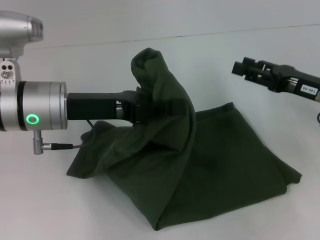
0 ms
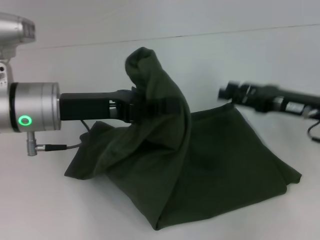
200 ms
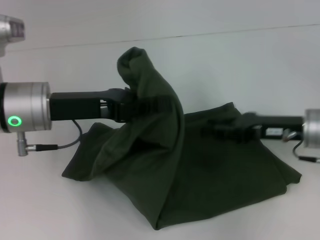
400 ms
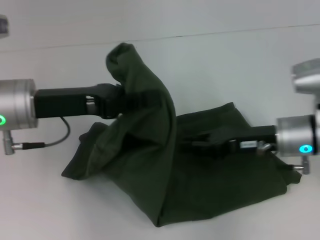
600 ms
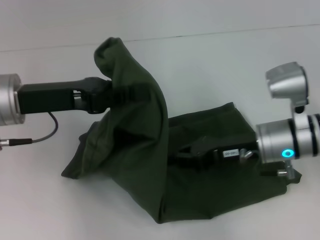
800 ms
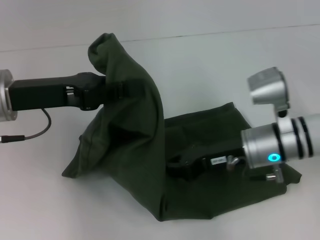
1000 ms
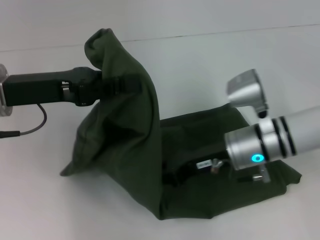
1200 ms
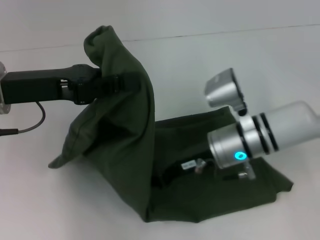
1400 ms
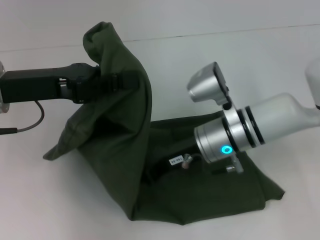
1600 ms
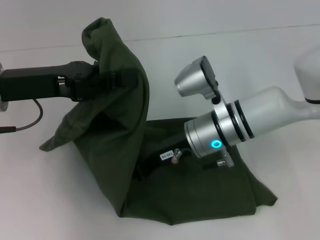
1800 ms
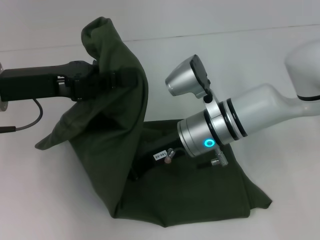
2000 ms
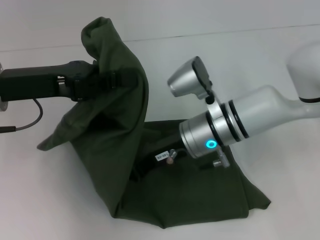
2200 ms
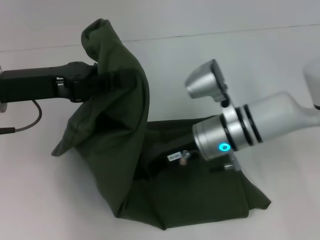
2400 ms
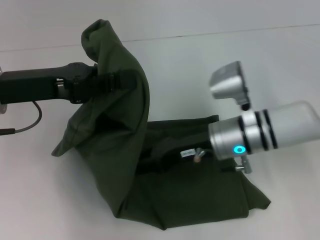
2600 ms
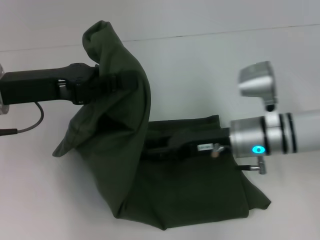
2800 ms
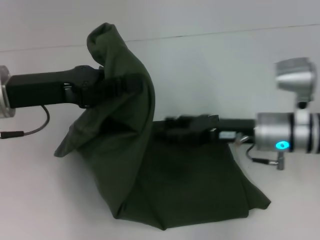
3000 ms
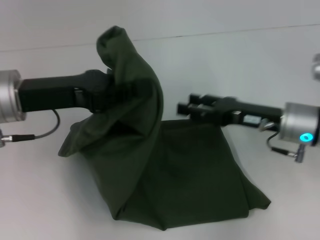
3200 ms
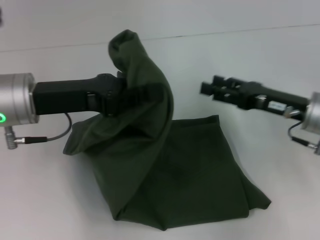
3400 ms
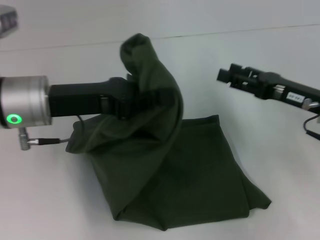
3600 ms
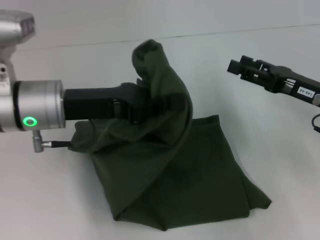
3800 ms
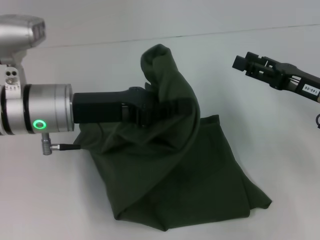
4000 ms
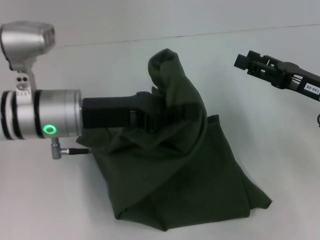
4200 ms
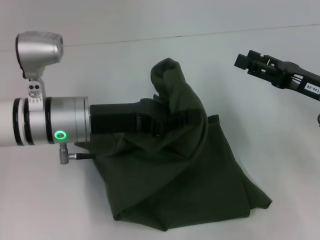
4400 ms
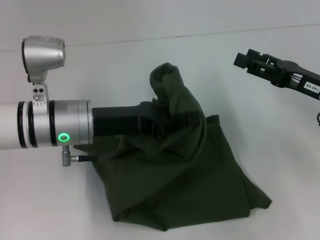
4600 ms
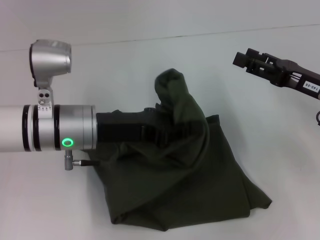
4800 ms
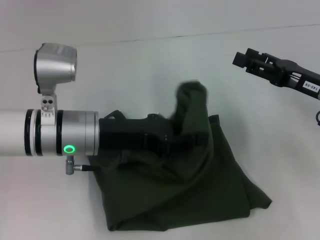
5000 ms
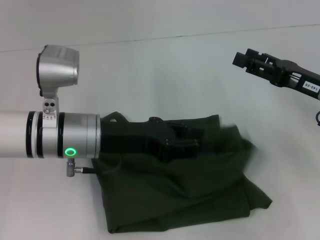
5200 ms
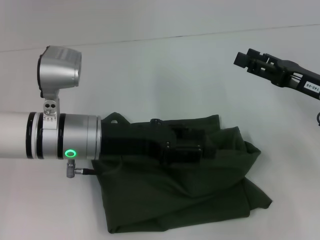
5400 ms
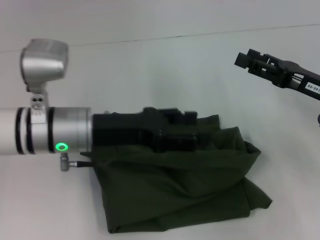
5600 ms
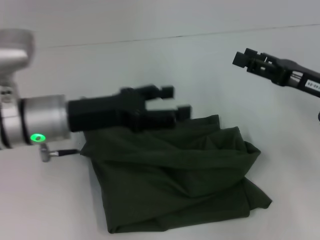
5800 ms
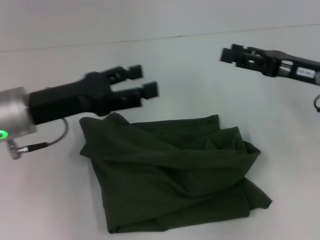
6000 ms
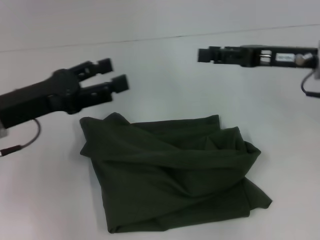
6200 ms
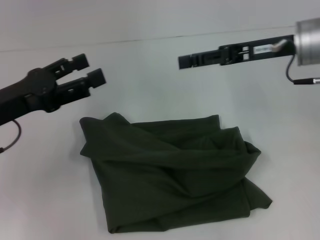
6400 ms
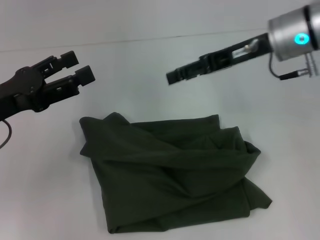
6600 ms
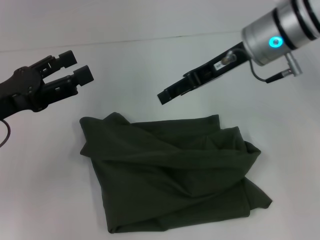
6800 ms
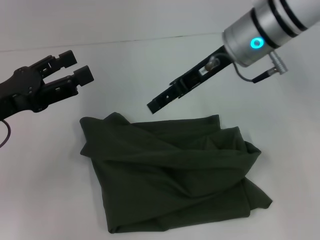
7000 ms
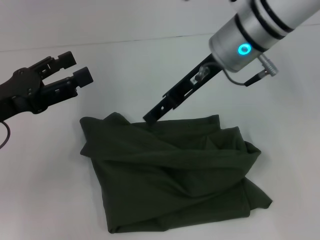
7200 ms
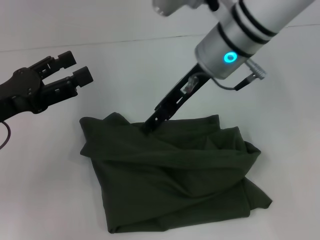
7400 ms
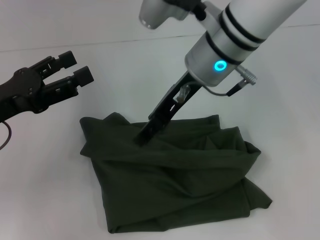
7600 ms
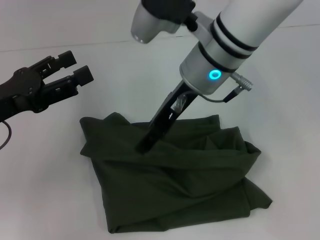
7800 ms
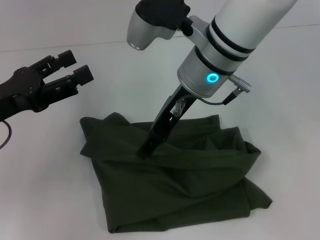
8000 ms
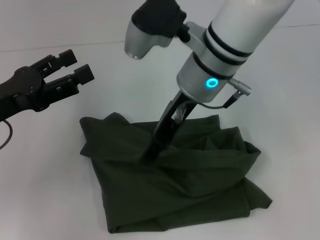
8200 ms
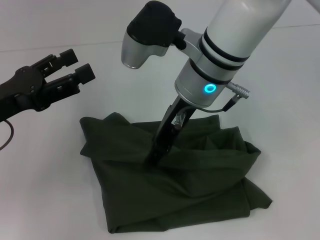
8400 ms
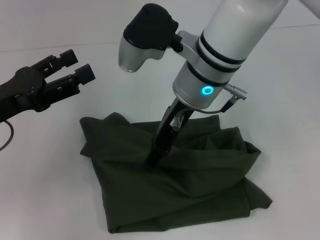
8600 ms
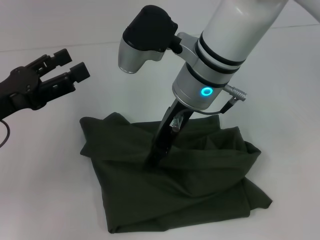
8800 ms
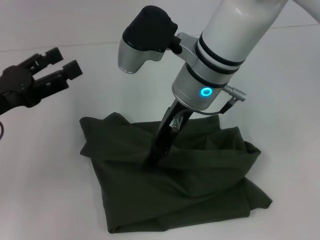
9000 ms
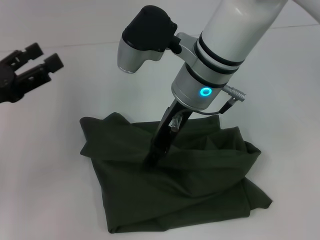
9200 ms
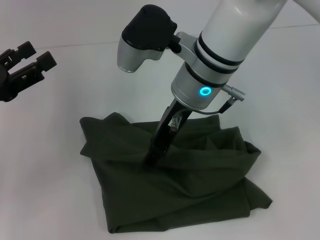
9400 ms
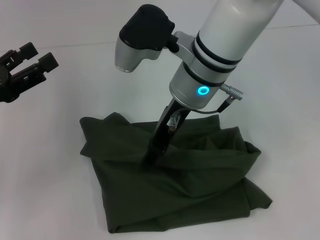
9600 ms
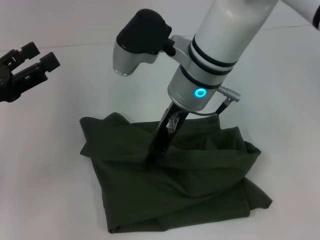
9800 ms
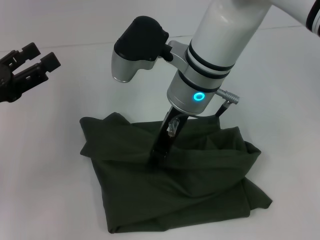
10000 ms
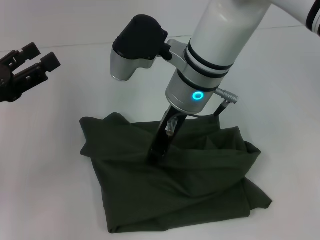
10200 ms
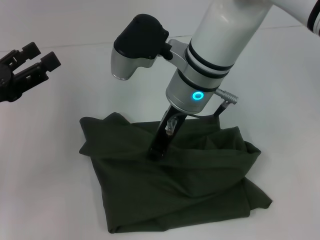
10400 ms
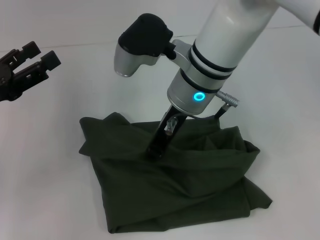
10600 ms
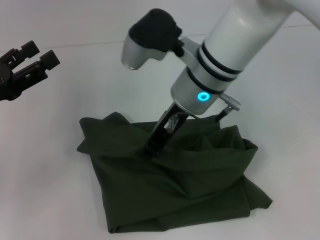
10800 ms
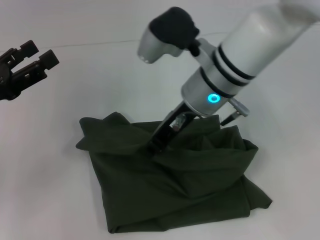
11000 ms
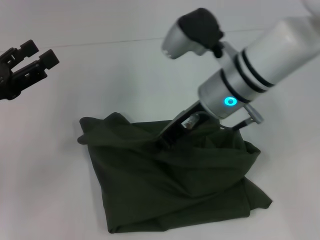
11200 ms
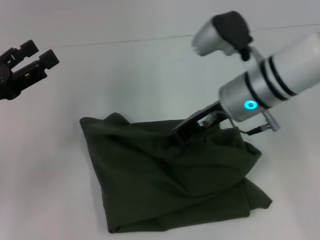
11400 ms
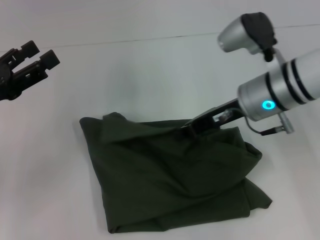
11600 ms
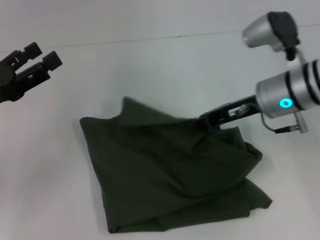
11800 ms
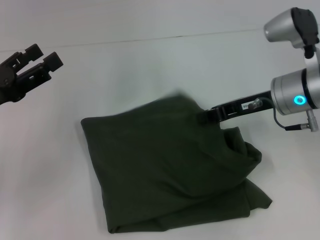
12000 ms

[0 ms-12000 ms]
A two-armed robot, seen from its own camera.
0 ms to 1600 ms: The right gripper goes roughly 20 cm to the left, and closes up; the left gripper heads to the left, covering about 5 cm.
1600 ms to 3000 ms: The right gripper heads to the right, covering about 10 cm, and opens its fingers.
3000 ms to 4400 ms: The right gripper is displaced to the right by some 10 cm. The left gripper shifts approximately 10 cm to the right and downward.
4400 ms to 6000 ms: The left gripper goes about 5 cm to the left, and opens.
6000 ms to 7600 ms: The left gripper heads to the left, covering roughly 5 cm. The right gripper heads to the left, covering roughly 20 cm.
7600 ms to 9000 ms: The grippers move only a little.
9000 ms to 10400 ms: The right gripper closes up.
10400 ms to 12000 ms: The right gripper shifts about 15 cm to the right.

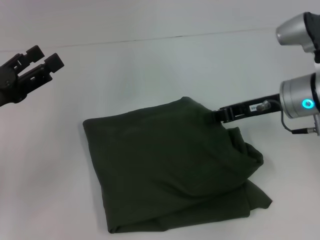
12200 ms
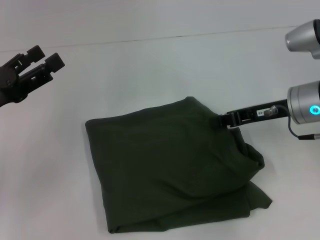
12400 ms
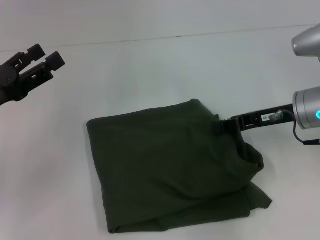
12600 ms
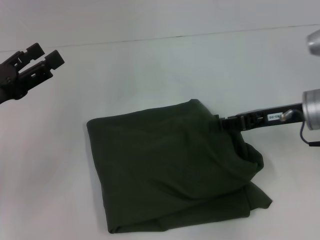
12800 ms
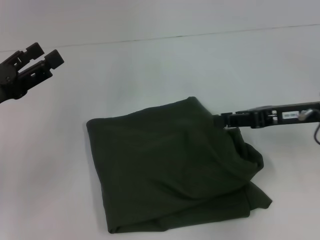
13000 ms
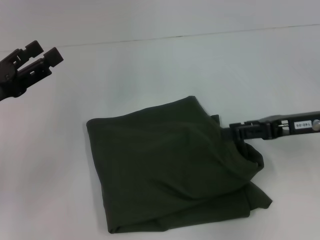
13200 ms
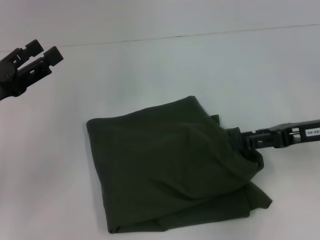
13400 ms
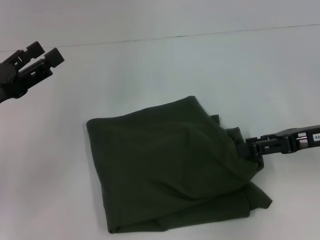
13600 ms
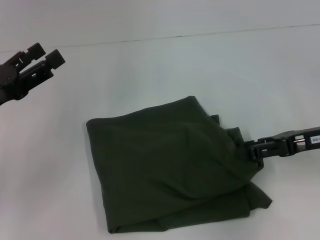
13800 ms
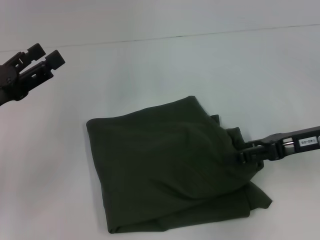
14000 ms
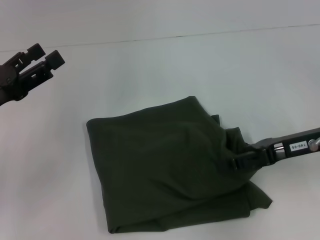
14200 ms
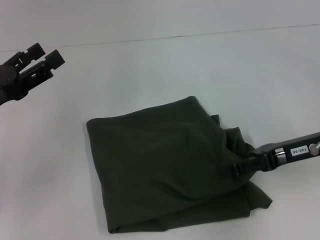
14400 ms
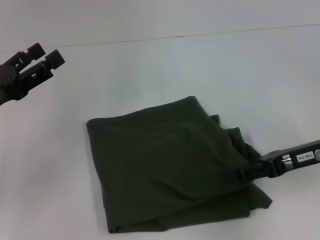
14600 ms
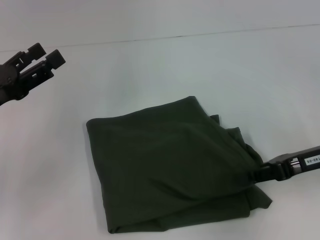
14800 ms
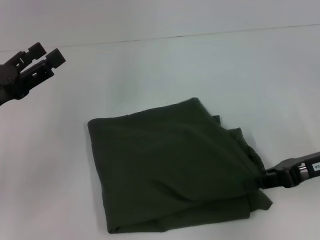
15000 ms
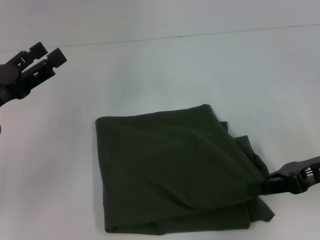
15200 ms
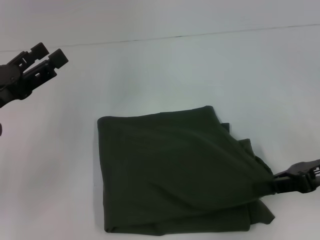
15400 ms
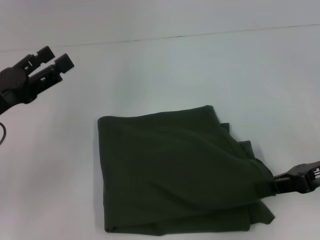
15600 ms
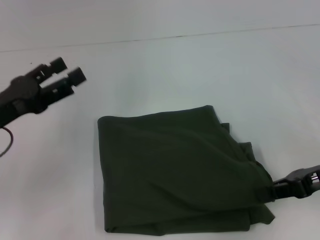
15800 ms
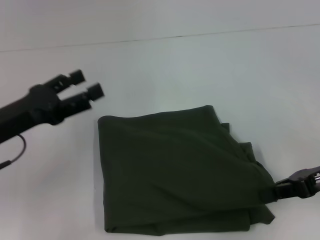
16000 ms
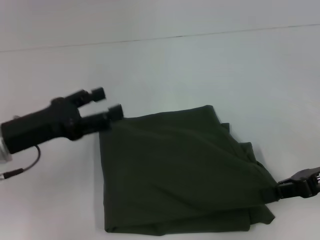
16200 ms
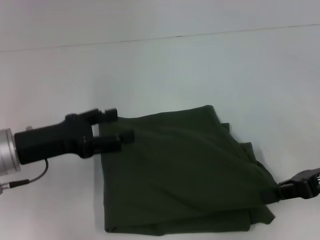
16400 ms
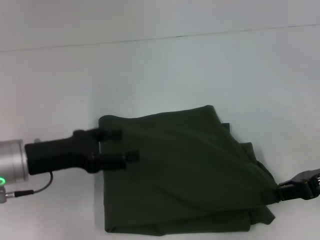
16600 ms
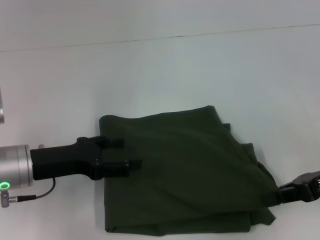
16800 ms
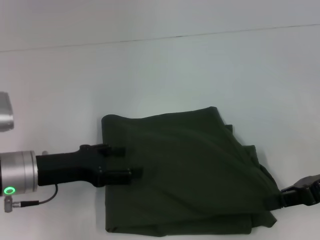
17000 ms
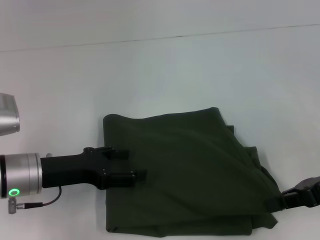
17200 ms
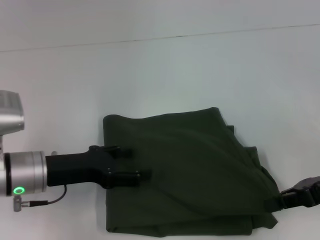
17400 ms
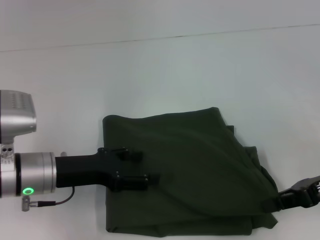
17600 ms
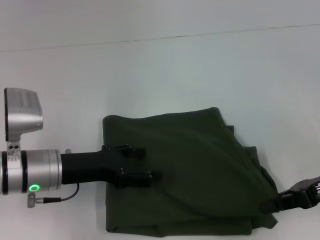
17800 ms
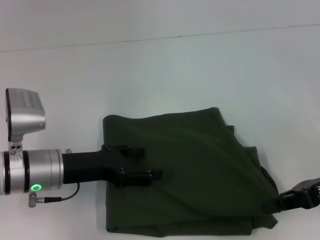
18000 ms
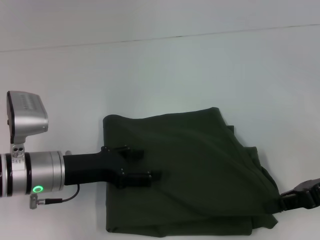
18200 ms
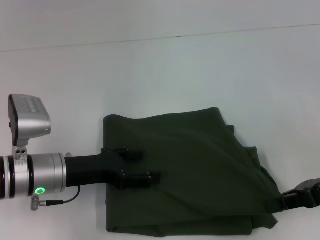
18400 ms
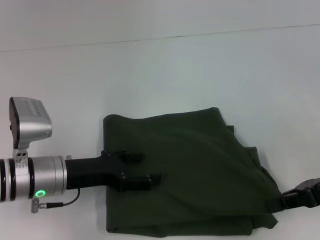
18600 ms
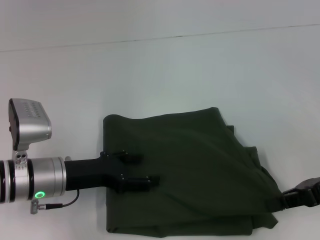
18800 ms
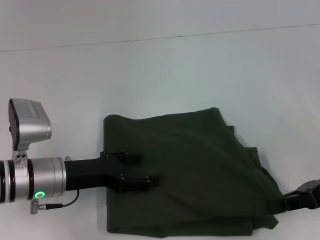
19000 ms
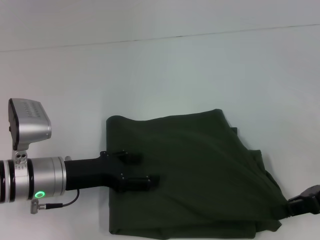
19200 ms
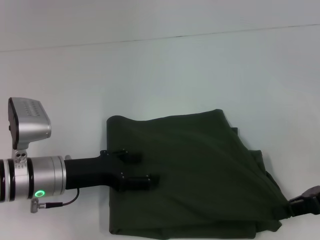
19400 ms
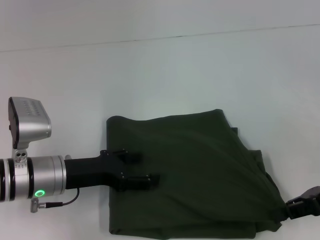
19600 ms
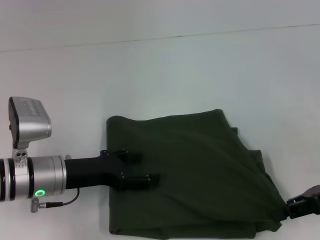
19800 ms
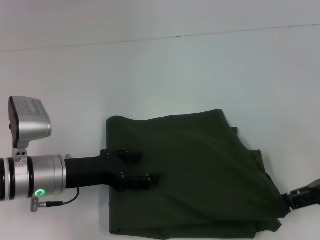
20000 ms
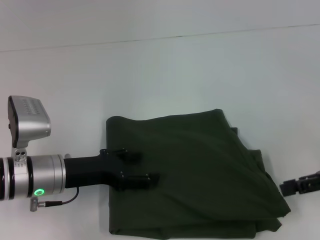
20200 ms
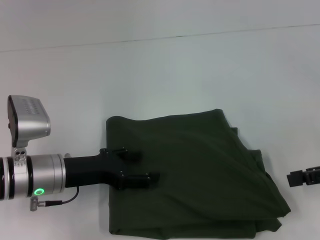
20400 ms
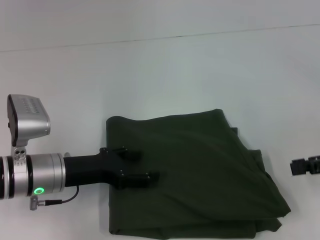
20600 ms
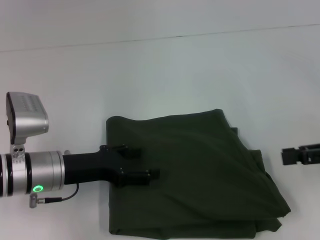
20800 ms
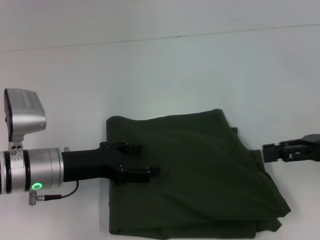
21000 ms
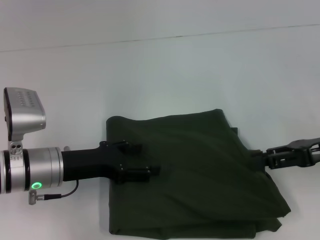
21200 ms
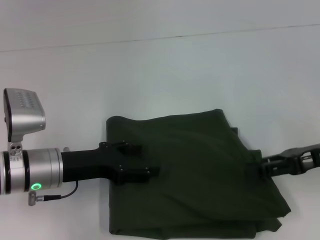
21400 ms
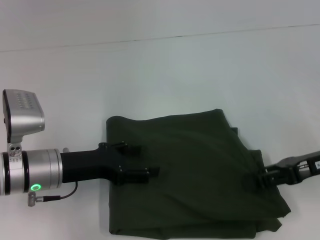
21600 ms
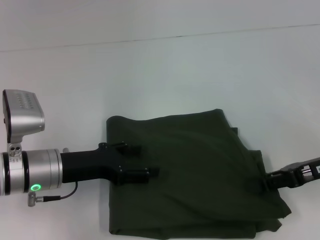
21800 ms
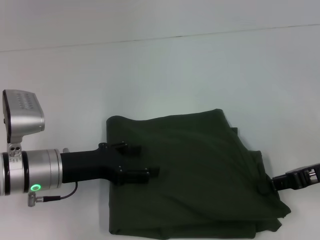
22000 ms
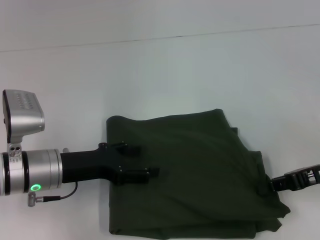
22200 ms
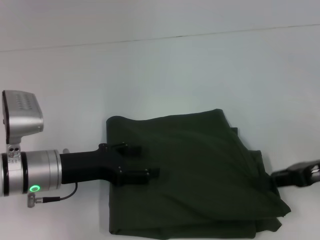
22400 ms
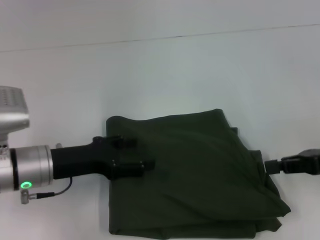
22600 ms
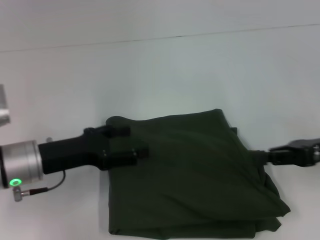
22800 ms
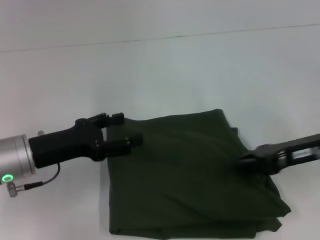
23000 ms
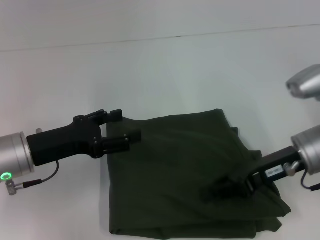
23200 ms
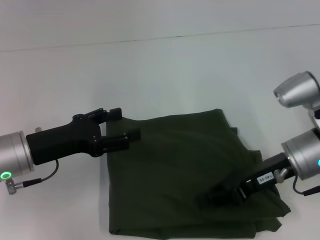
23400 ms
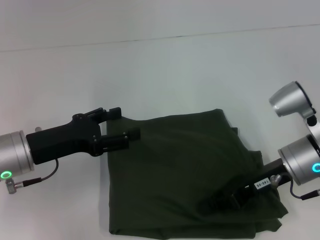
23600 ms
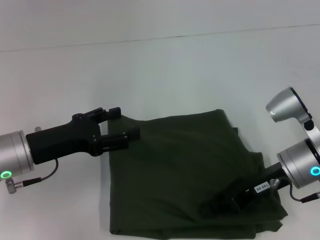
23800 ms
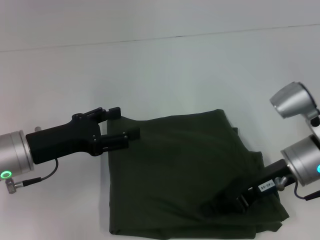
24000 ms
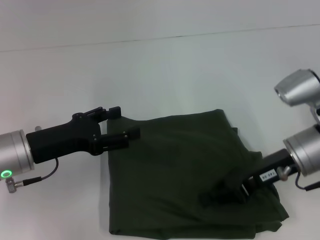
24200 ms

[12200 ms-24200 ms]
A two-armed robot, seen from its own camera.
Step, 12200 ms to 19800 ms: Fold the clothes with your left hand.
12200 ms to 13800 ms: The right gripper shifts some 10 cm to the right and backward, and opens.
13800 ms to 15200 ms: The right gripper closes its fingers.
15200 ms to 16600 ms: The left gripper goes about 5 cm to the right.
16600 ms to 18200 ms: The left gripper shifts by about 5 cm.
18200 ms to 19800 ms: Both grippers stay about where they are.
19800 ms to 21200 ms: The right gripper opens.
21200 ms to 22600 ms: The right gripper closes up.
22600 ms to 24200 ms: The right gripper shifts approximately 10 cm to the left.
